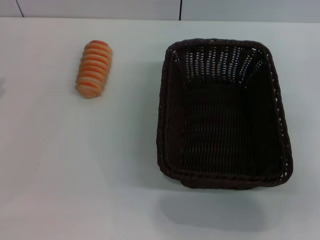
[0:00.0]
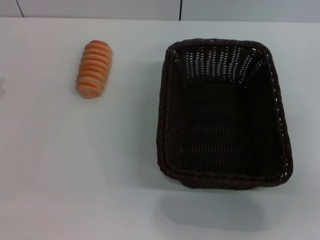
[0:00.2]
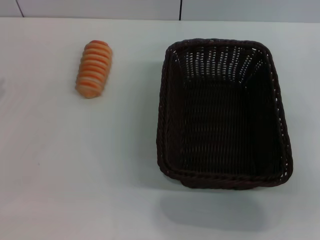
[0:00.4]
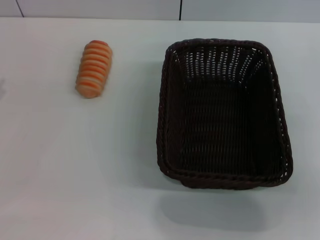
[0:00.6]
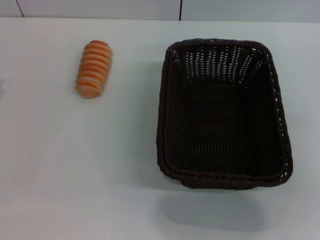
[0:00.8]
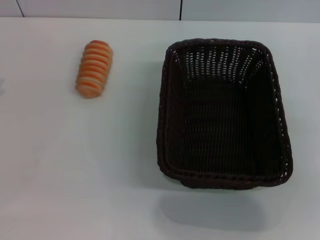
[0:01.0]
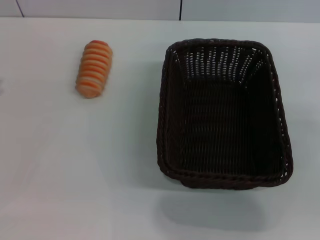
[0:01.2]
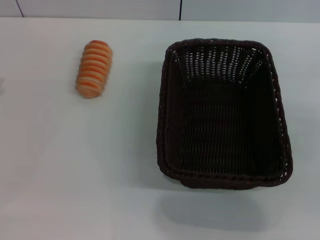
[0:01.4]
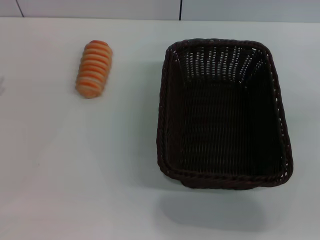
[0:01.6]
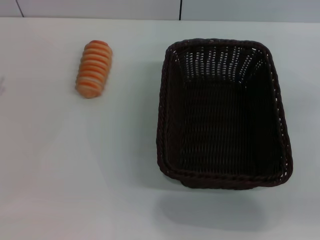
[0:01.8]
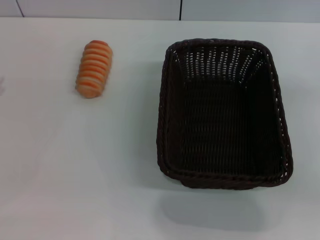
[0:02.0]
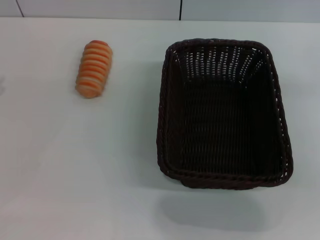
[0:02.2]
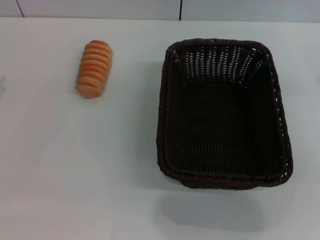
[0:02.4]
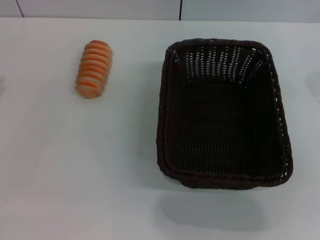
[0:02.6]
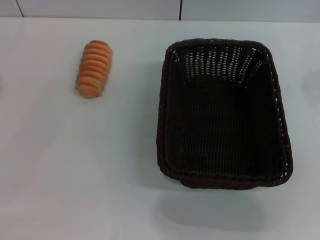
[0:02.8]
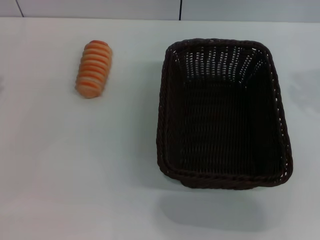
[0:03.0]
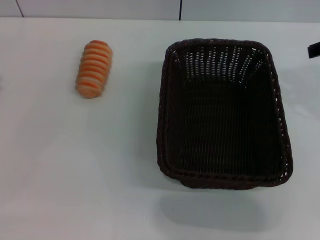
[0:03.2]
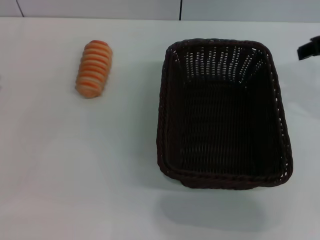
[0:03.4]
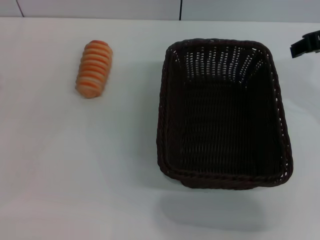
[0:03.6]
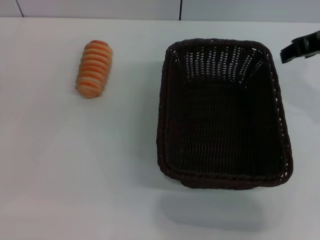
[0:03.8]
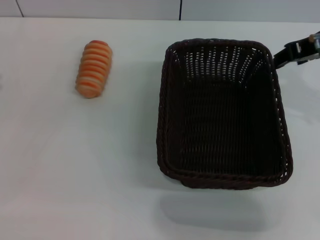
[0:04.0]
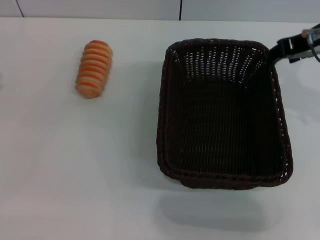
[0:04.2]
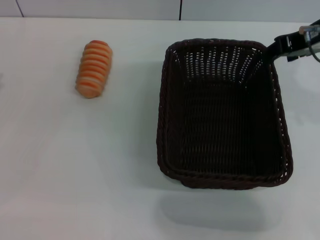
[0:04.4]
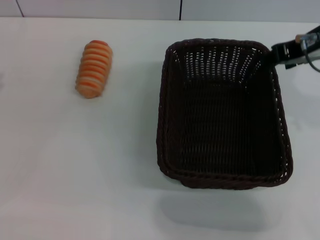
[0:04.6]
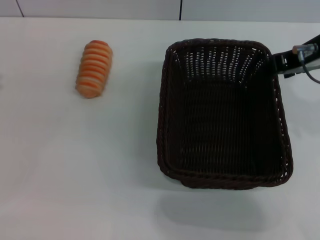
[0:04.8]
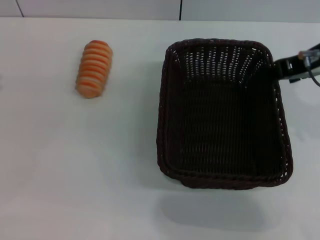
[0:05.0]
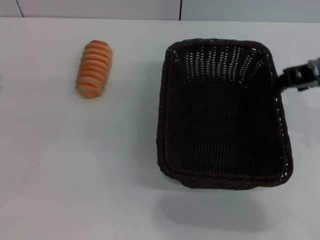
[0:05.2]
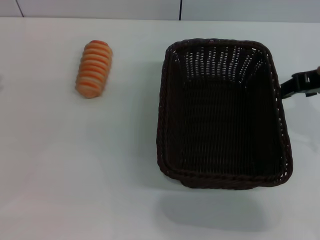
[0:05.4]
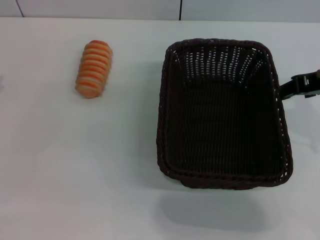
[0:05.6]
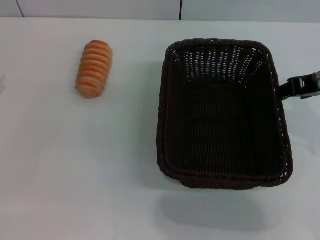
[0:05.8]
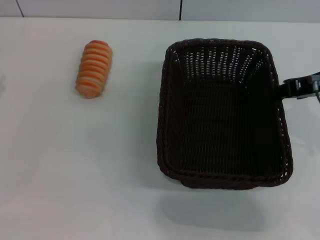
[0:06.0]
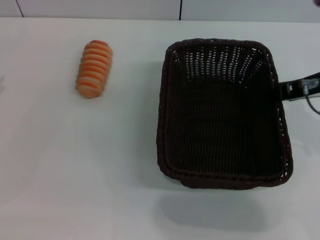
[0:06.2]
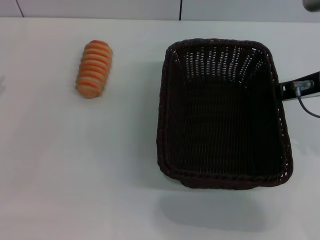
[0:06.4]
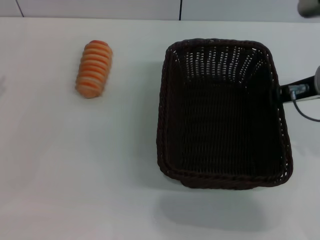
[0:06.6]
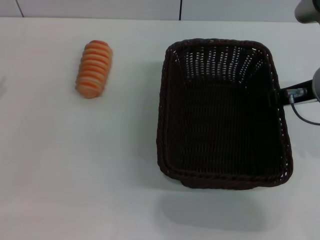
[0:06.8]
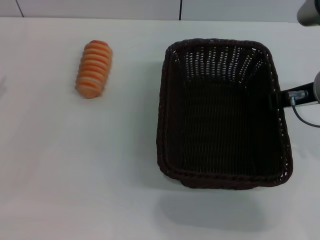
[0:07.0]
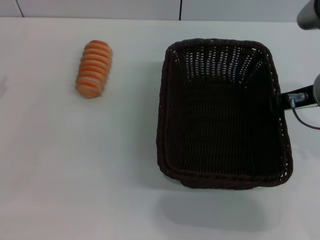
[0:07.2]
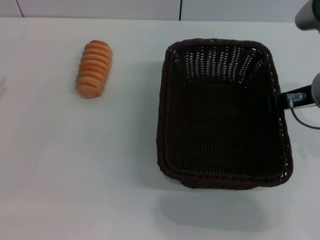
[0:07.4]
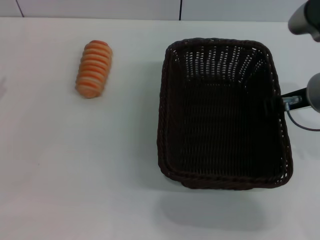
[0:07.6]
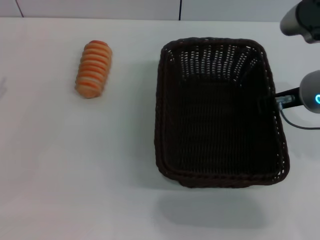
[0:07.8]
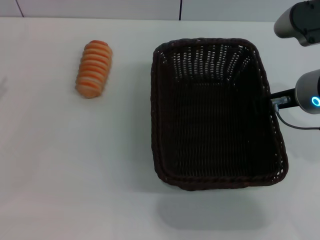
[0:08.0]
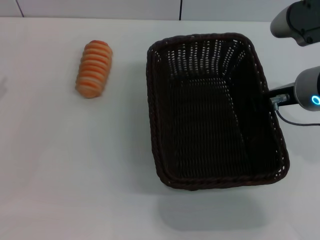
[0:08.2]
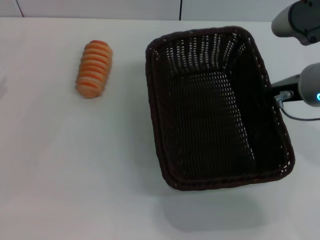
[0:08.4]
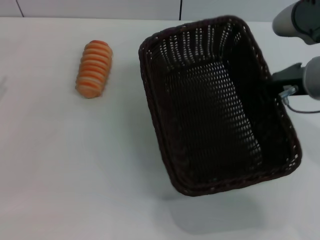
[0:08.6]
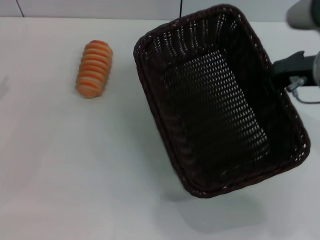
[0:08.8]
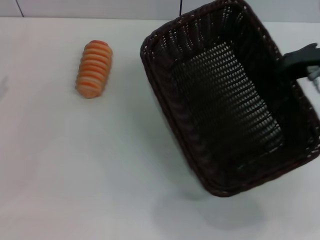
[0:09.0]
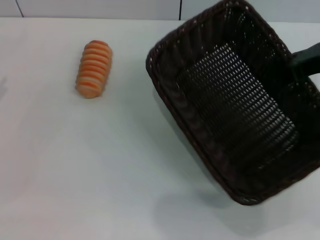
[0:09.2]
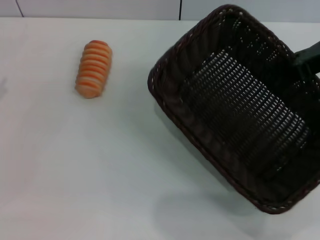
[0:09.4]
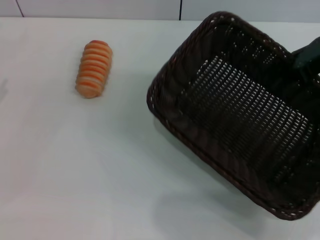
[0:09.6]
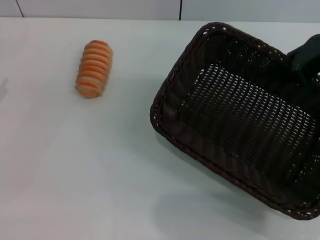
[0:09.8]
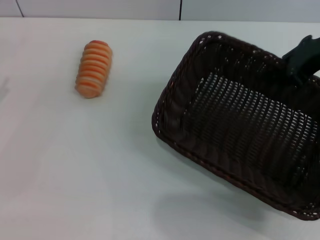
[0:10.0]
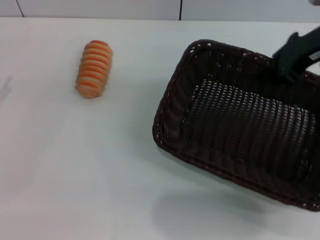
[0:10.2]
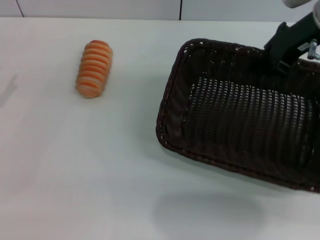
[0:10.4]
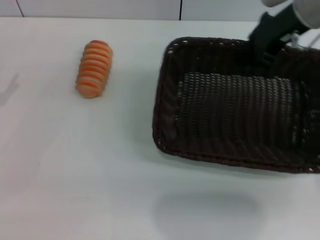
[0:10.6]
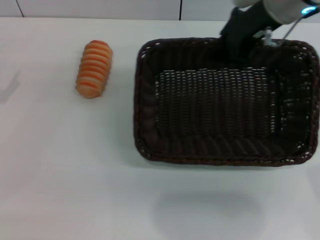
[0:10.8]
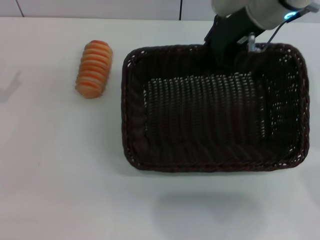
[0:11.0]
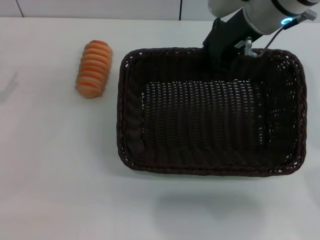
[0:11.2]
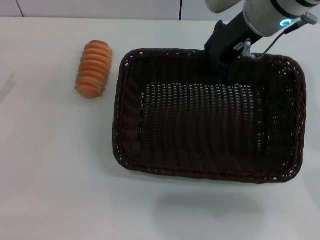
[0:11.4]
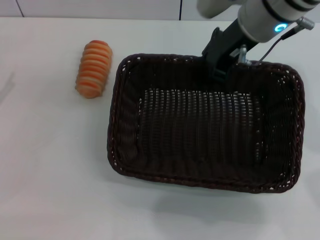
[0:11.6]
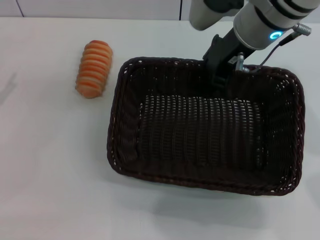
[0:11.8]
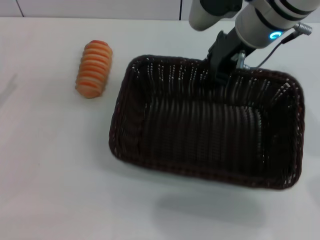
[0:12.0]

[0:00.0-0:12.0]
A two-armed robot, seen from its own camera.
Step, 0:00.0 to 0:08.8: Pick up the dark basket with the right gripper.
0:03.0 to 0:04.4: The right gripper travels to the left by approximately 5 cm.
0:04.4 to 0:06.0: The right gripper changes place by approximately 5 cm.
0:06.0 to 0:07.6: The right gripper moves downward, roughly 5 cm.
0:07.6 to 0:09.0: The right gripper moves approximately 5 cm, and closes up.
0:09.0 to 0:10.4: The right gripper moves forward, roughly 10 cm.
0:10.4 to 0:12.0: The right gripper moves to the left, roughly 10 cm, and opens its fingers.

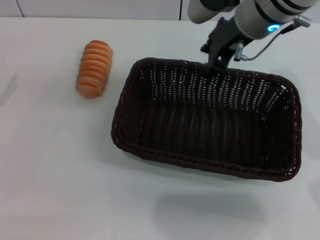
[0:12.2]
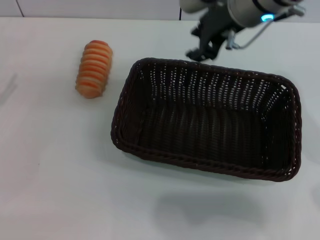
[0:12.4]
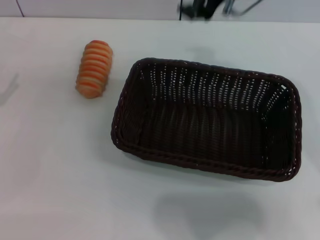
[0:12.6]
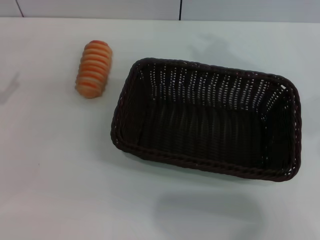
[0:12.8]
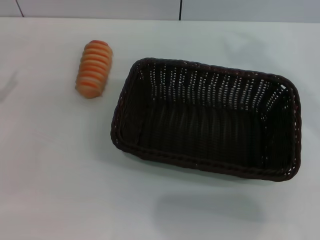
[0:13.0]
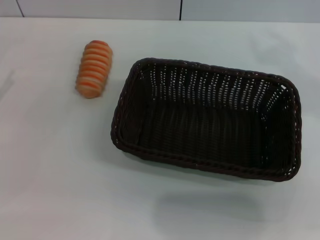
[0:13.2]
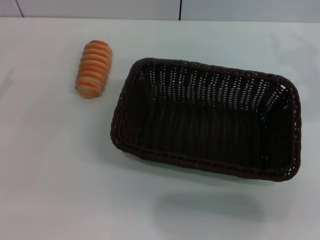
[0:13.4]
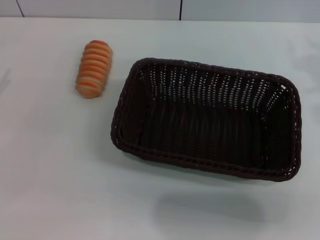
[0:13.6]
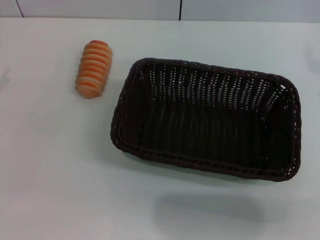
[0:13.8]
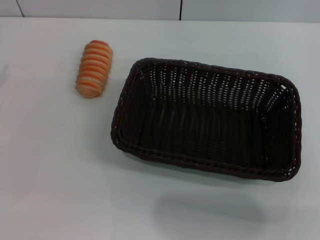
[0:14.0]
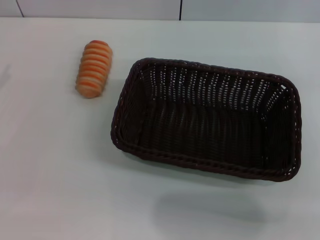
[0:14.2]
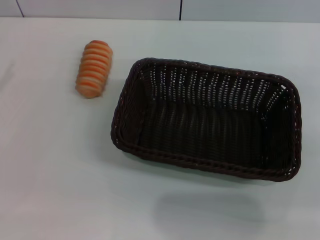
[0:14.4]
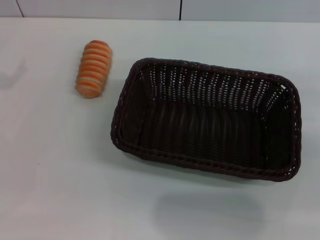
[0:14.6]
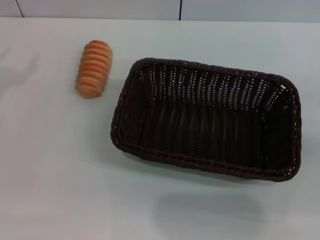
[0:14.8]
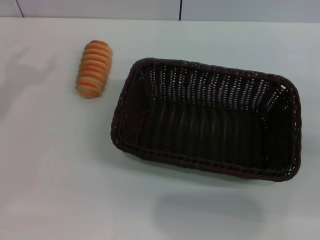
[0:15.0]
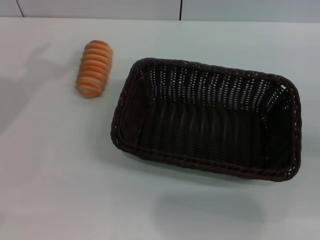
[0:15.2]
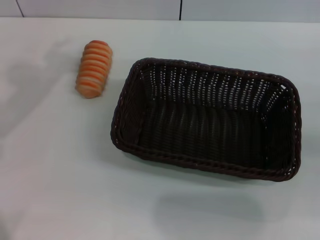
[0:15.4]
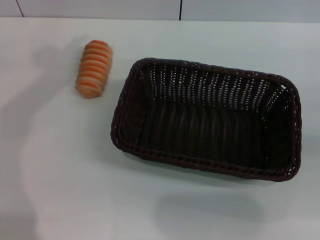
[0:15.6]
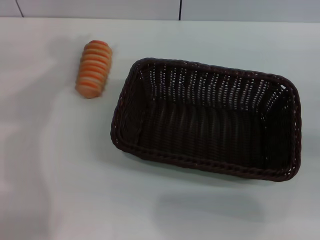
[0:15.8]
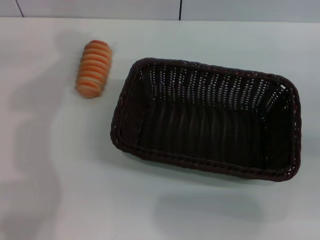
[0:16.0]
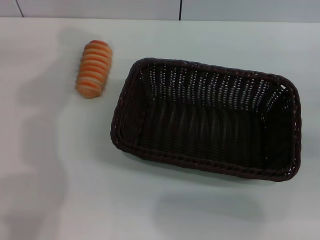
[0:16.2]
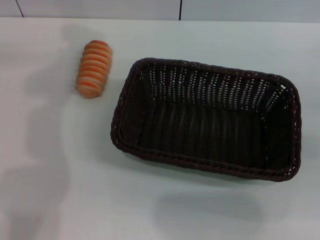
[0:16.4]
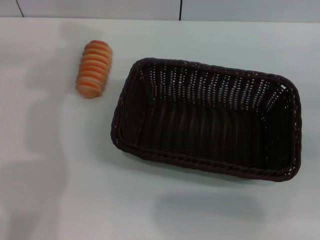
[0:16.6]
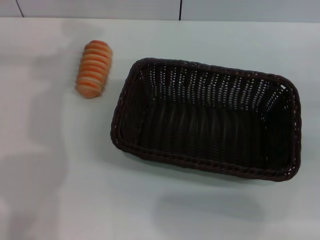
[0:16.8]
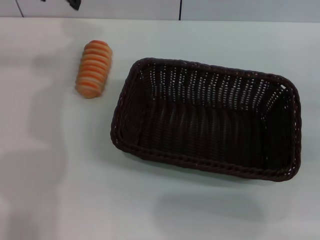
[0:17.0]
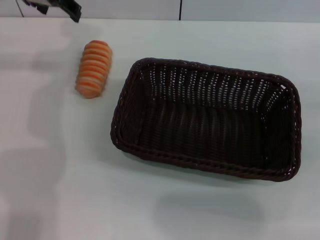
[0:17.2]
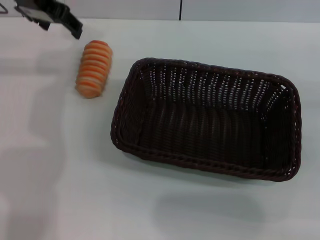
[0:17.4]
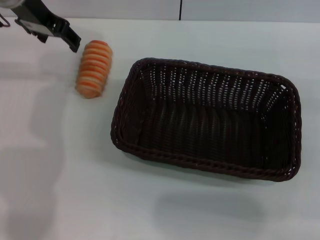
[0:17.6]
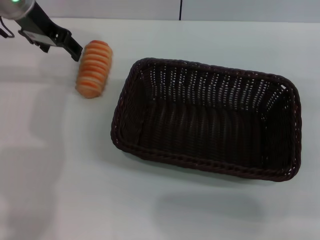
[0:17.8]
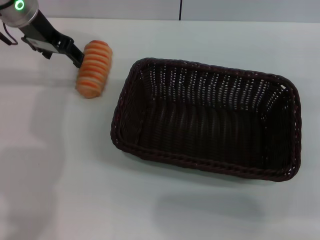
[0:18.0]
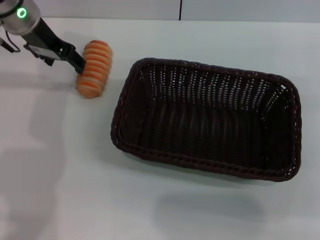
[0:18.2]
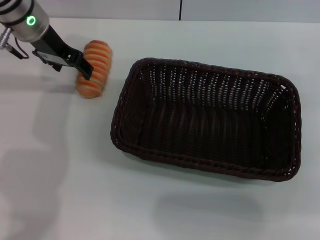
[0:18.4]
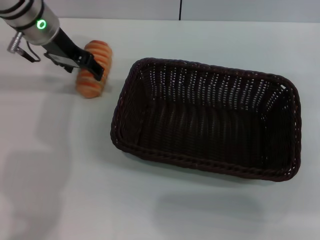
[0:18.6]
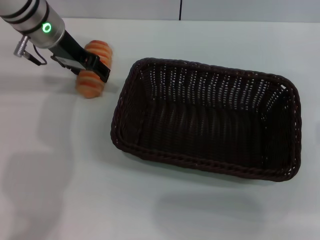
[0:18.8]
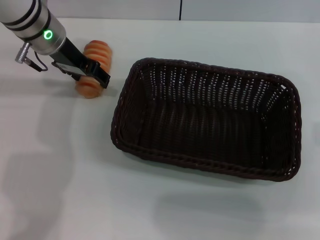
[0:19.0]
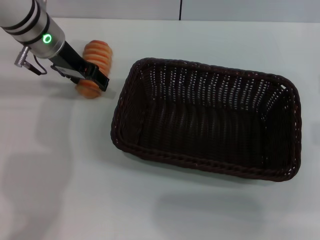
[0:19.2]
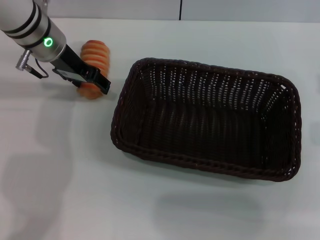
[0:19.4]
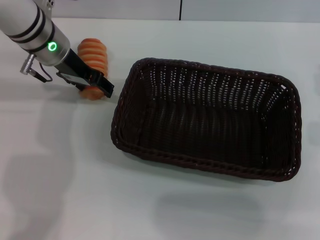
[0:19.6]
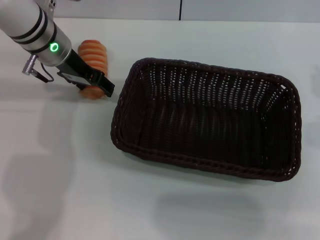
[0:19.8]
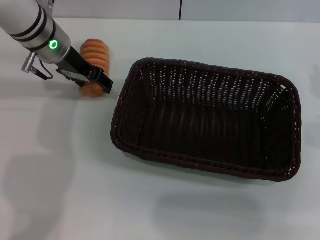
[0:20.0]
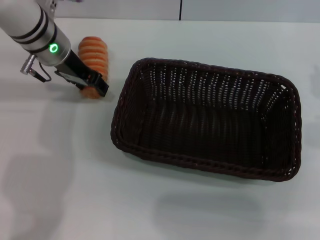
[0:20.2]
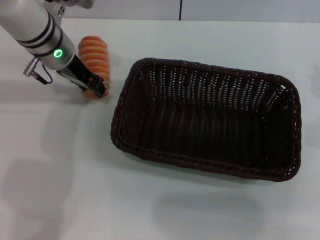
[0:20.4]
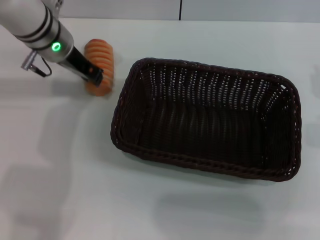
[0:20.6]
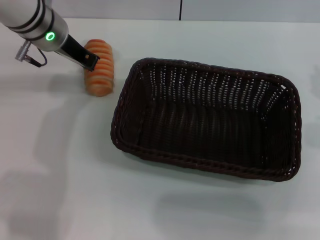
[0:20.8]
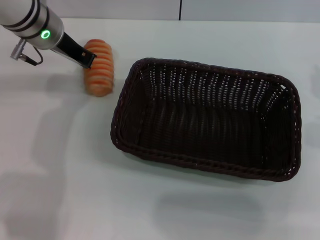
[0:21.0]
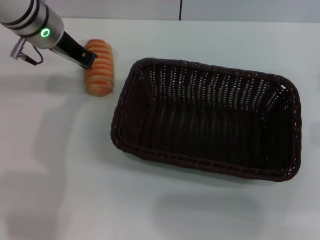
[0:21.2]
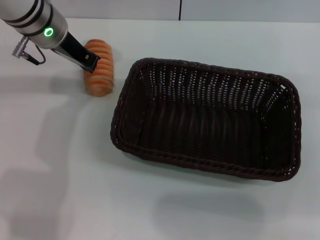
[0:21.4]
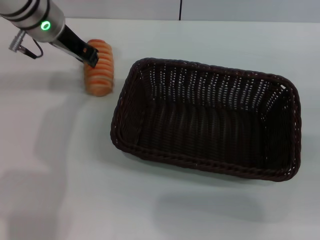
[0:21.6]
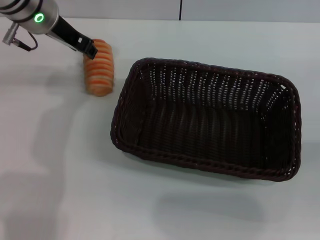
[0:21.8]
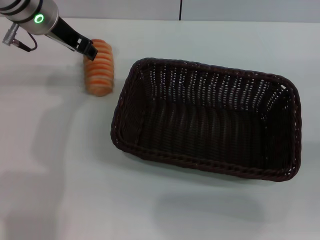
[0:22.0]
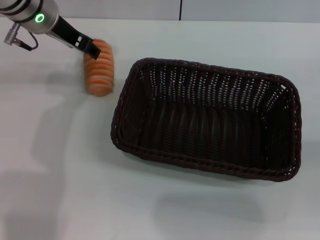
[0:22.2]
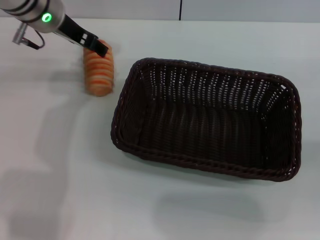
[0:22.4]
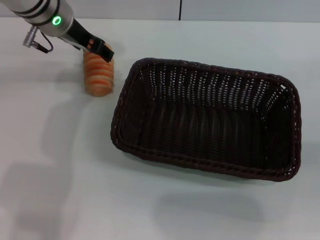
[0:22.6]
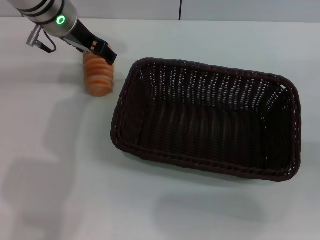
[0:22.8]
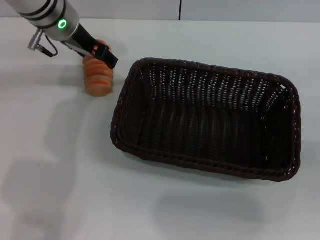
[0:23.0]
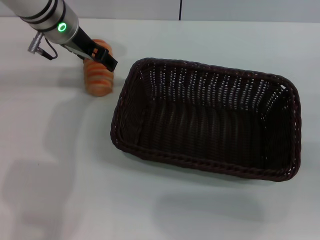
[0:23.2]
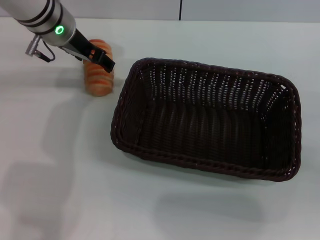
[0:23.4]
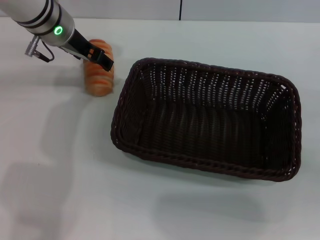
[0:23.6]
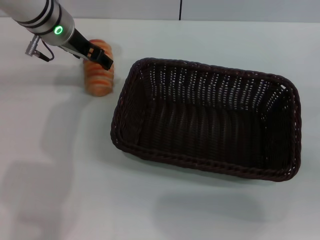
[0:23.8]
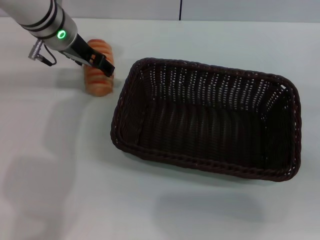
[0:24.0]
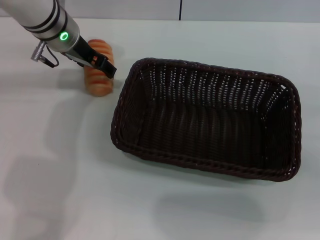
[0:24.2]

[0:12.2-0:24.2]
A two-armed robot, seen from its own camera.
0:12.2 to 0:13.8: The right gripper heads to the right and backward, covering approximately 25 cm. Meanwhile the left gripper shifts by some 5 cm.
0:13.8 to 0:15.2: The right gripper is displaced downward and to the right by some 15 cm.
0:15.2 to 0:16.6: The left gripper heads forward and to the right, covering some 15 cm.
0:16.6 to 0:18.2: The left gripper travels downward by some 10 cm.
0:18.2 to 0:19.8: The left gripper moves about 5 cm.
0:19.8 to 0:21.2: The left gripper closes up.
0:21.2 to 0:22.6: The left gripper opens its fingers.
0:22.6 to 0:24.2: The grippers stay close to where they were, moving slightly.
